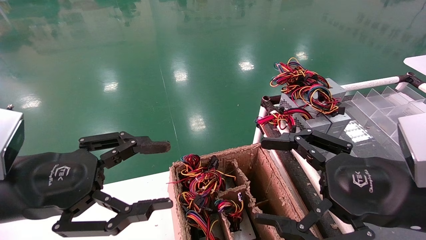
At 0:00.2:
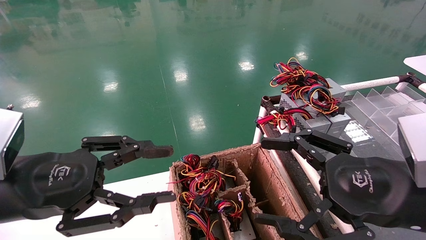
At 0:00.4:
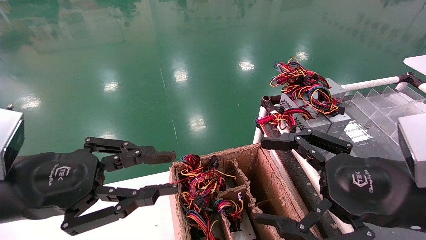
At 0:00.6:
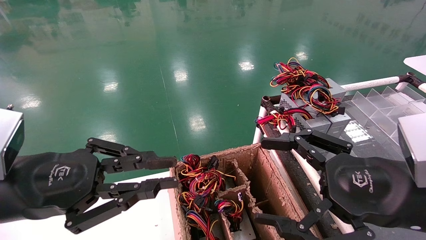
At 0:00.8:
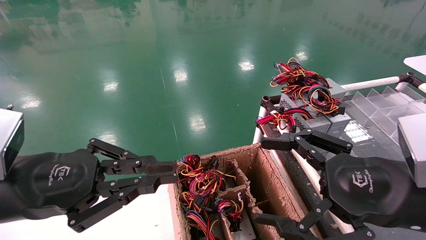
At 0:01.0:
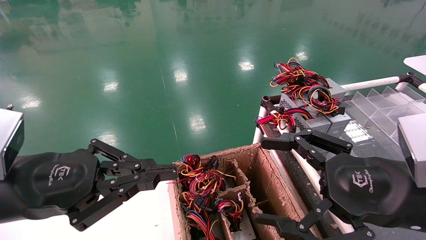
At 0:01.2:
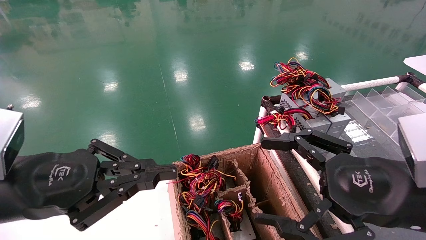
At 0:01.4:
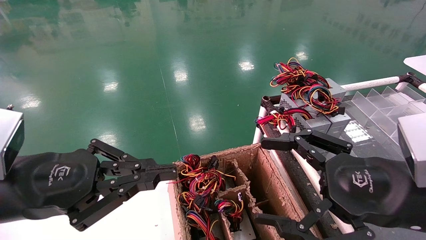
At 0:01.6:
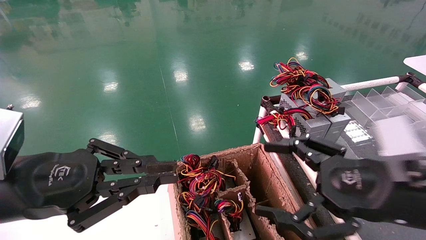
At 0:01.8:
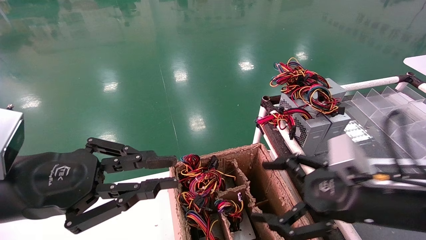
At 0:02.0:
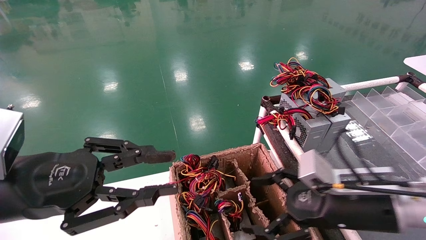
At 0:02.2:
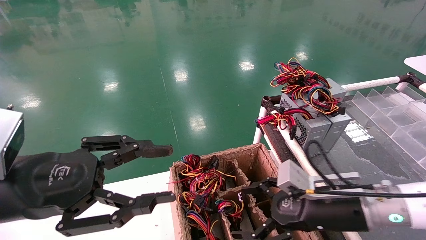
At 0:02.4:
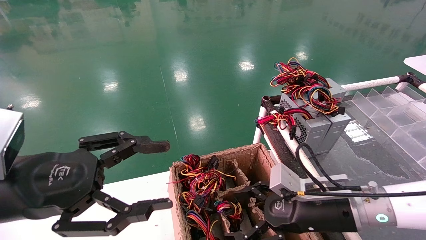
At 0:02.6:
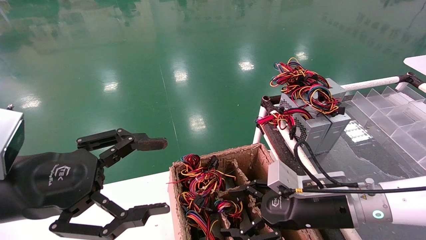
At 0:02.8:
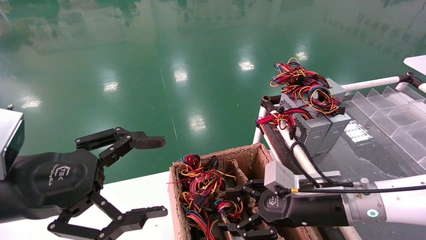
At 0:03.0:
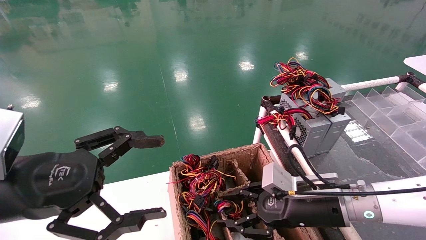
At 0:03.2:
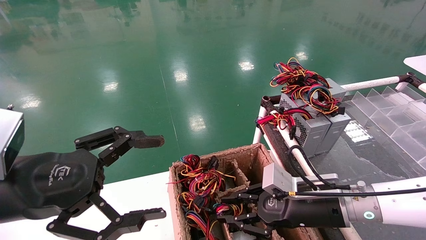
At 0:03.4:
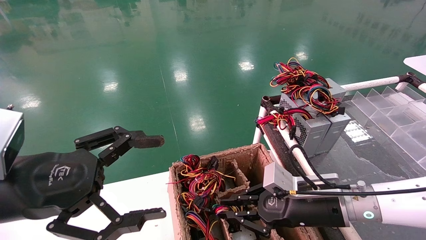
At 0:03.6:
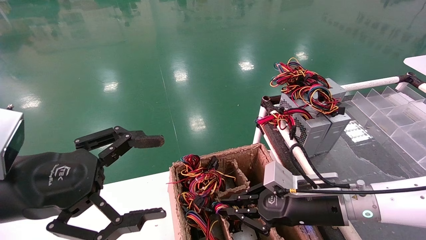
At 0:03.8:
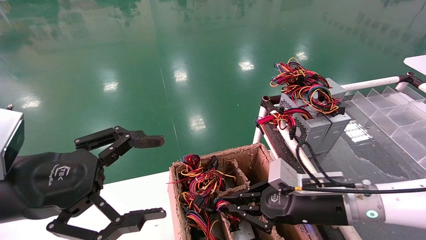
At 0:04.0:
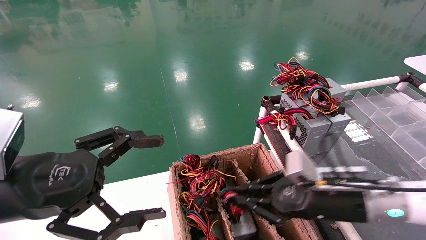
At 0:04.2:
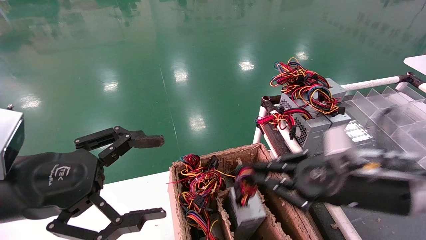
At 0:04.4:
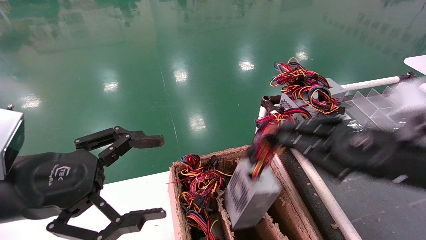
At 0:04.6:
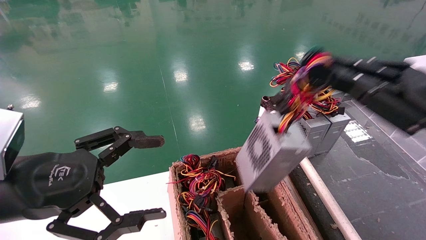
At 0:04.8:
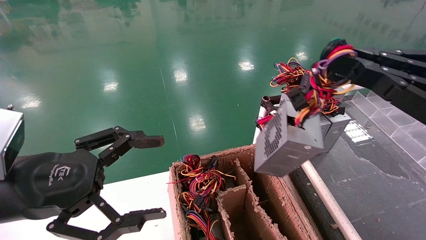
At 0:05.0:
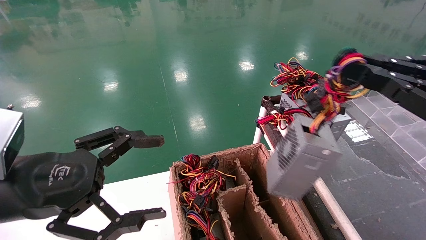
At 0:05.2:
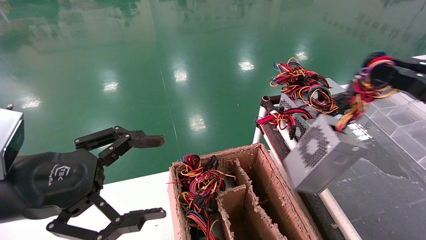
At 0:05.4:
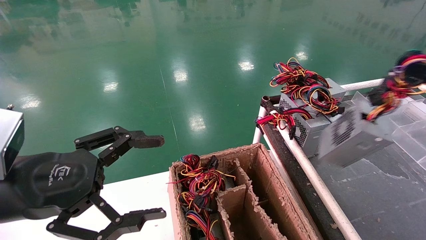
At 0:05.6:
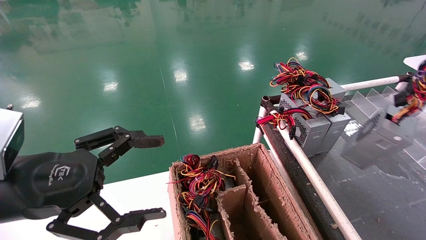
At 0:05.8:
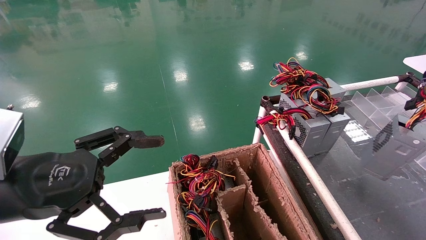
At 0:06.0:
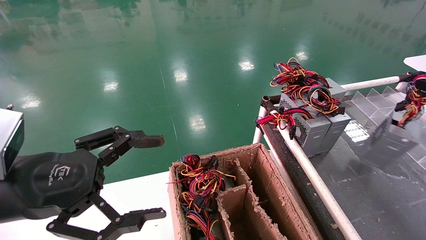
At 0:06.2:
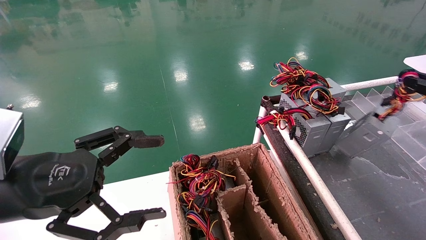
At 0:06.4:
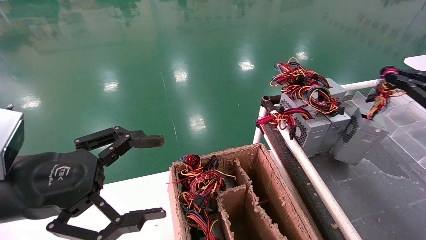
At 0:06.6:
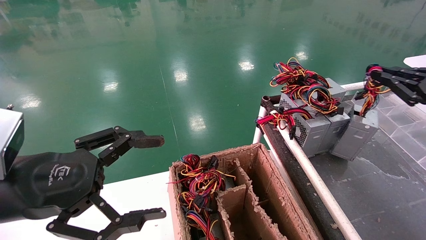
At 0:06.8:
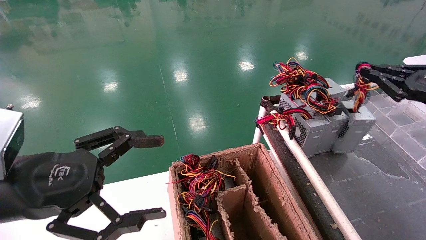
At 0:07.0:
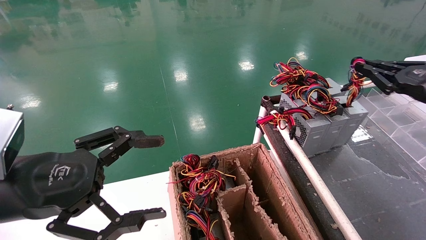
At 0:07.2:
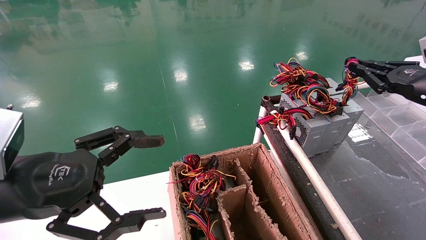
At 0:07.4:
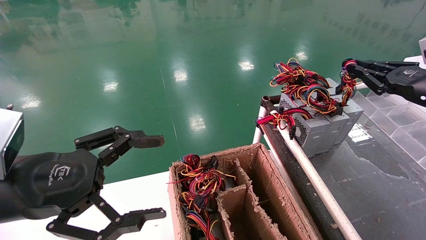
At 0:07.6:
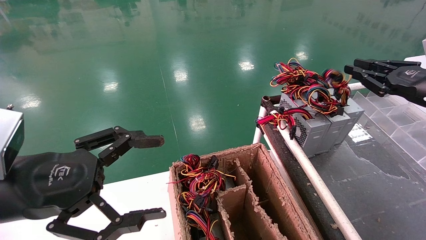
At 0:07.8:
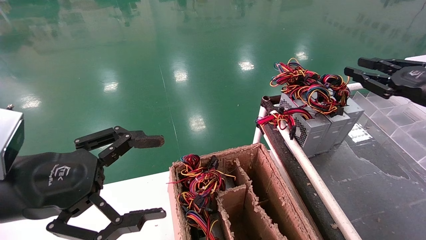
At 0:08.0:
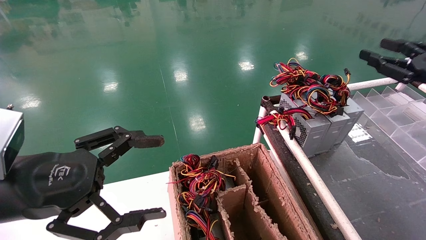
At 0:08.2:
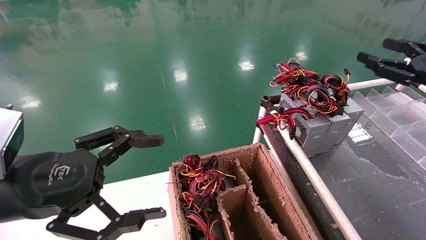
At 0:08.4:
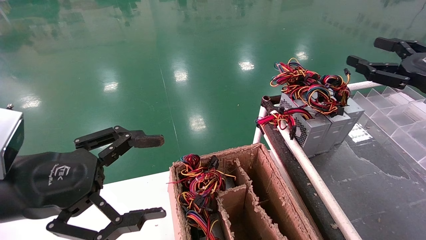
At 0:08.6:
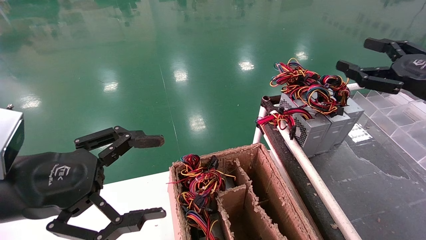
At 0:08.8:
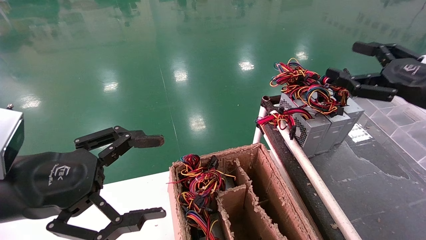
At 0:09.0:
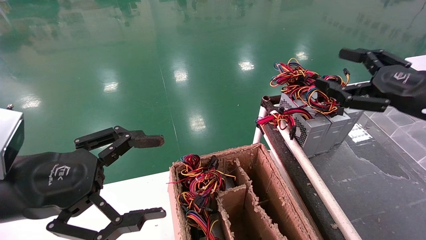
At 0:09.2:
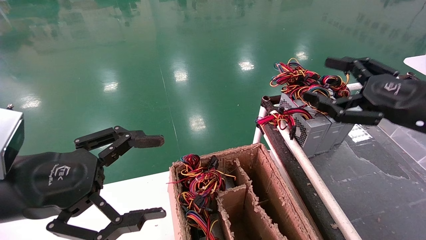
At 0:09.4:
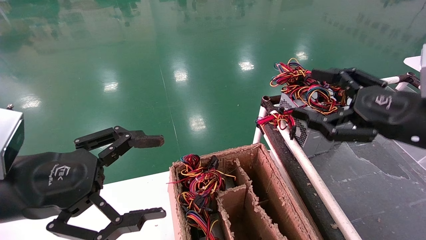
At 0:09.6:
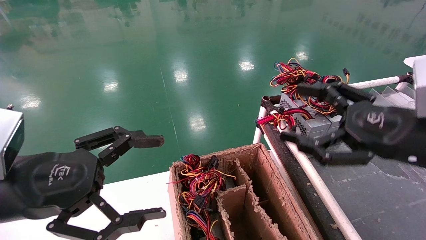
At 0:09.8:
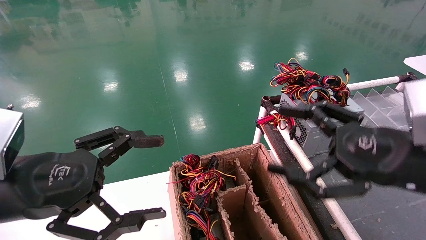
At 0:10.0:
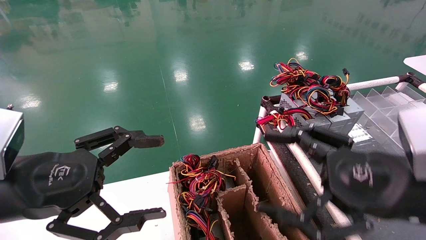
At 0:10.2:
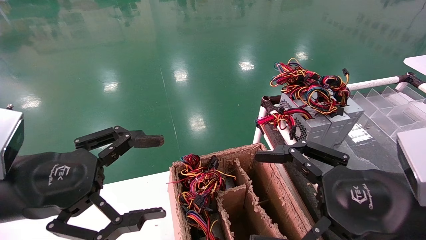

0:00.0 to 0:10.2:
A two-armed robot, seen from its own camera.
Step, 0:01.2 to 0:03.8: Grab and lift the power supply from the large box.
Step, 0:04.0 to 0:07.6: Place the power supply on the operating table.
0:00.0 to 0:01.4: The left gripper closes up.
0:01.4 to 0:03.0: The right gripper travels forward, downward and to the left by some 15 cm, and closes up, while the left gripper opens.
0:03.0 to 0:04.4: The right gripper moves upward, to the right and backward, about 15 cm, and closes.
0:04.4 to 0:05.8: The right gripper shifts approximately 20 cm to the right.
0:05.8 to 0:07.2: The right gripper travels forward and to the left by some 15 cm.
0:07.2 to 0:08.8: The right gripper heads to the left and backward, covering some 5 cm, and opens its fingers.
0:08.8 to 0:10.2: The right gripper is displaced to the left, backward and downward by some 20 cm.
